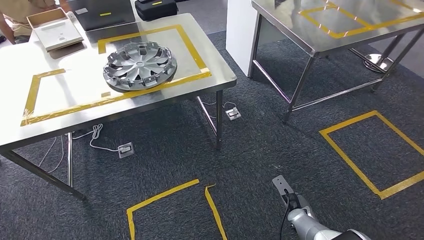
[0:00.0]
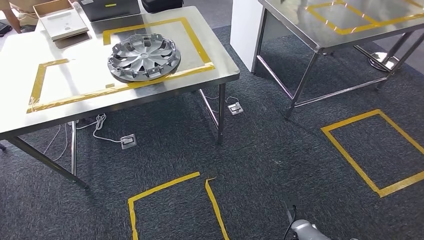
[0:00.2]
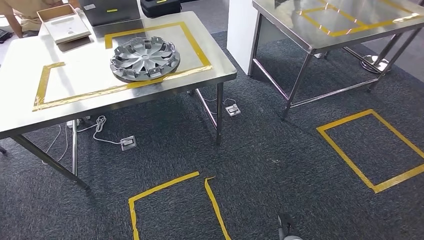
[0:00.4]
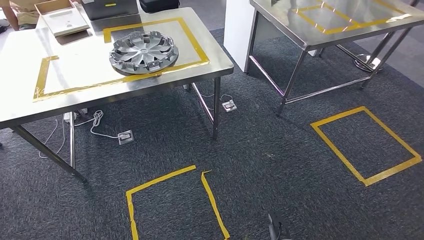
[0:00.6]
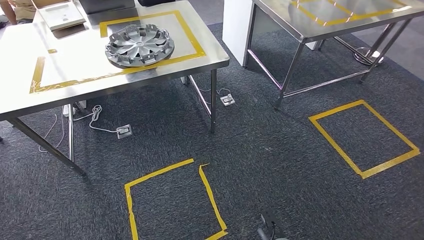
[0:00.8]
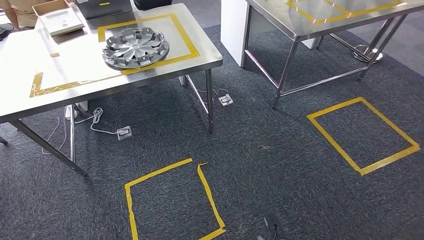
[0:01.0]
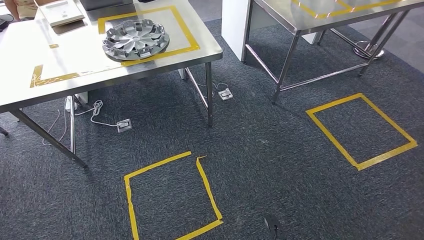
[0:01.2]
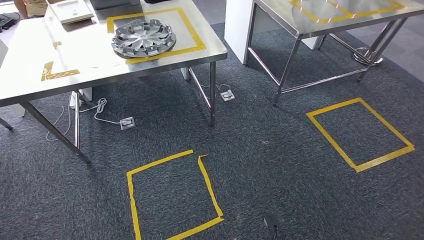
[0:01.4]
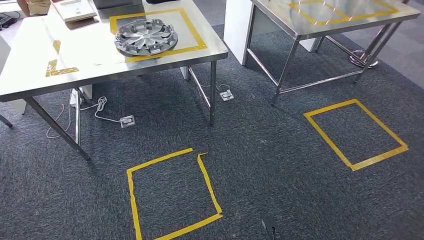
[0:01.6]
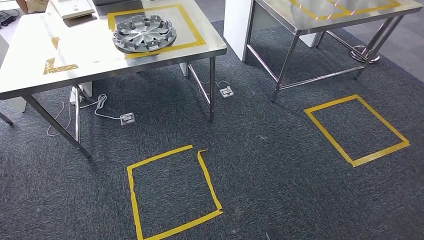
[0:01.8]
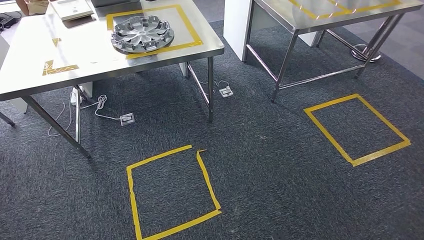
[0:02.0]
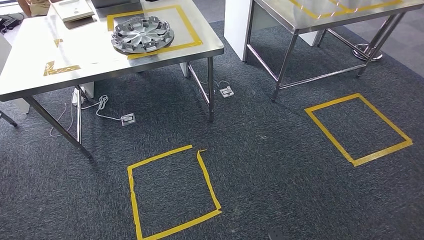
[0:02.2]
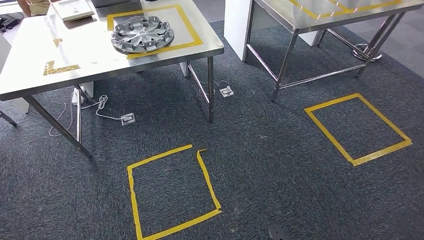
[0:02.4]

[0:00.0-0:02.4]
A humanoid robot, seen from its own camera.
Step, 0:00.0 to 0:02.4: Return to the initial position at the workbench.
0:01.2 to 0:02.4: The right hand moves backward, about 5 cm.
